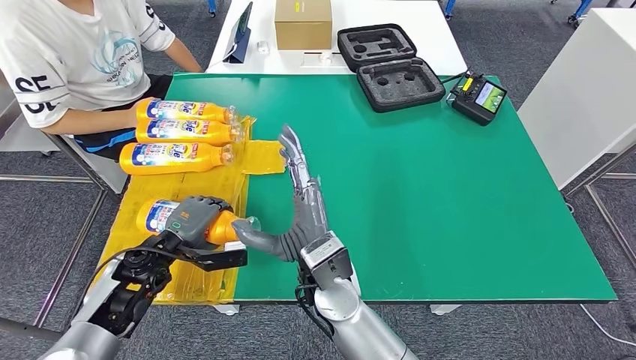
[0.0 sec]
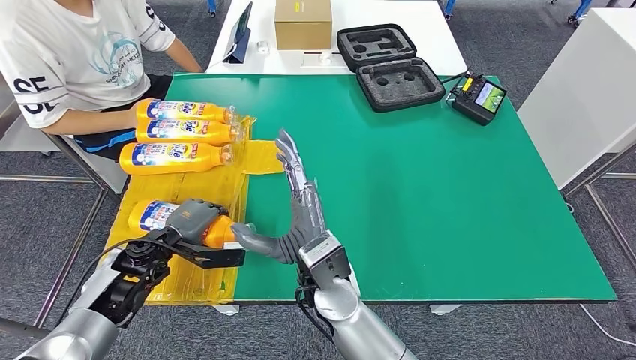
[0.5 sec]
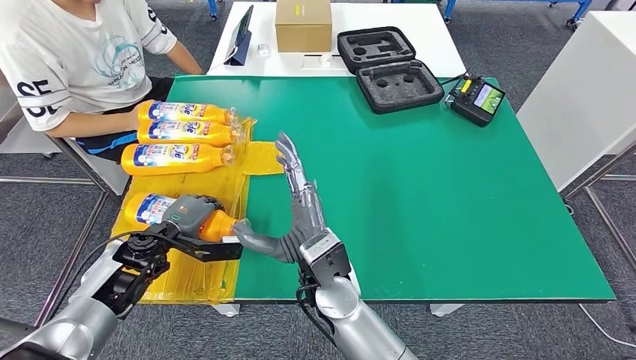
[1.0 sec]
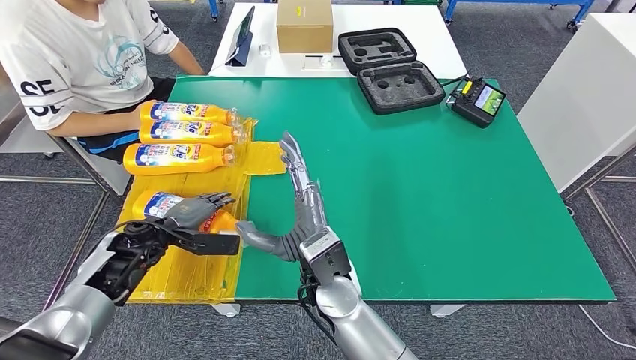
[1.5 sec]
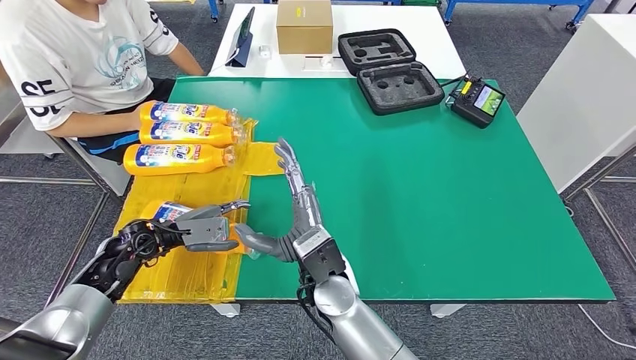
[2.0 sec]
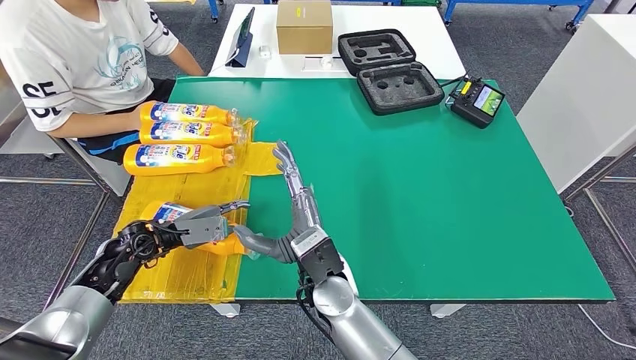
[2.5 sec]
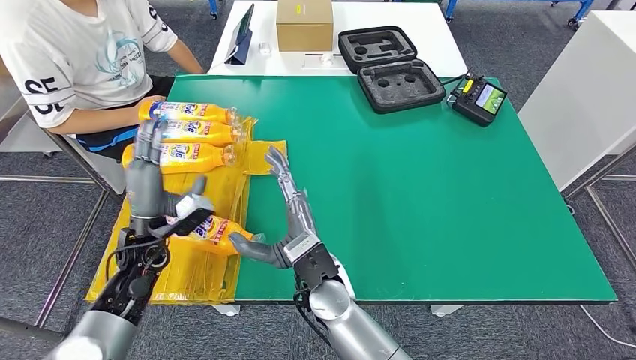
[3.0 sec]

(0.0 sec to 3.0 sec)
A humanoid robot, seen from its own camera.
Step, 0.0 sec - 3.0 sec: Flip the bottle to face forward.
